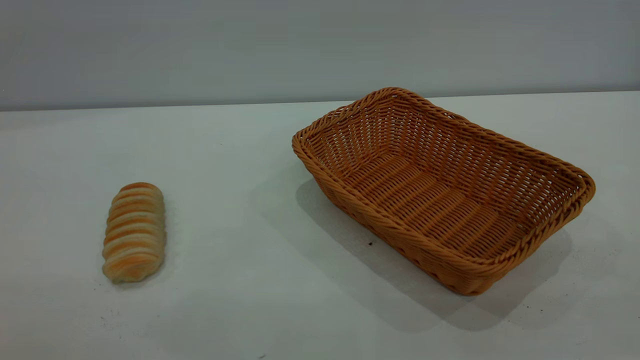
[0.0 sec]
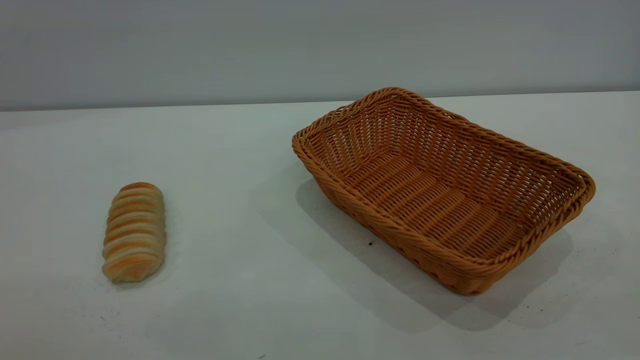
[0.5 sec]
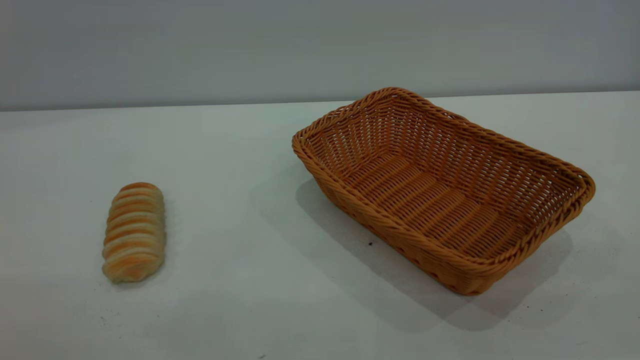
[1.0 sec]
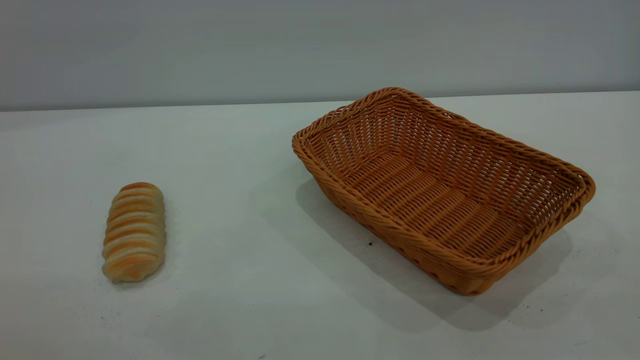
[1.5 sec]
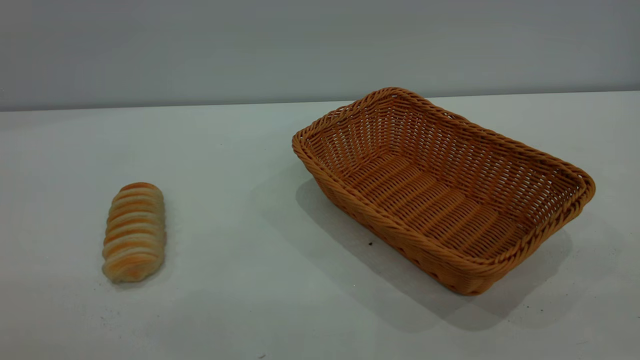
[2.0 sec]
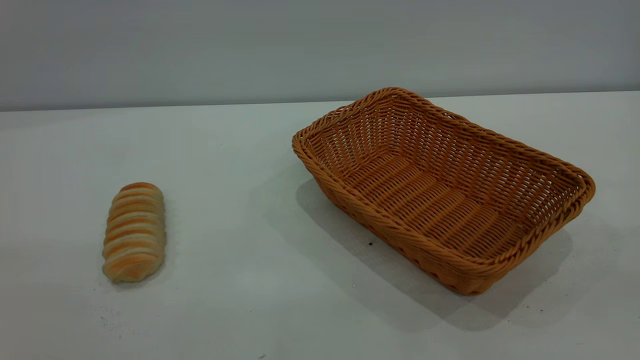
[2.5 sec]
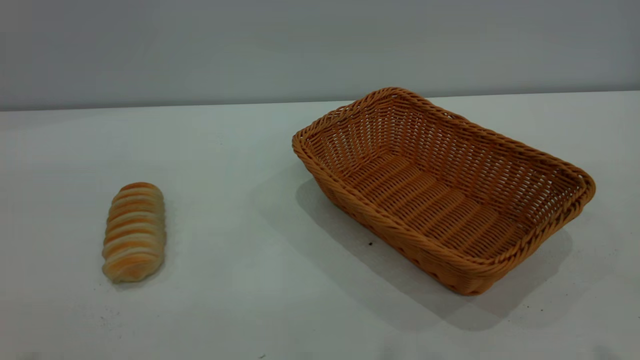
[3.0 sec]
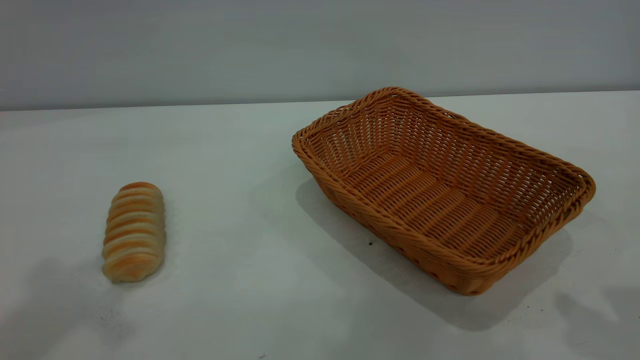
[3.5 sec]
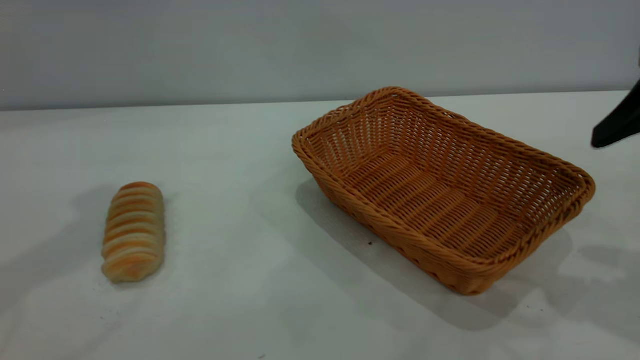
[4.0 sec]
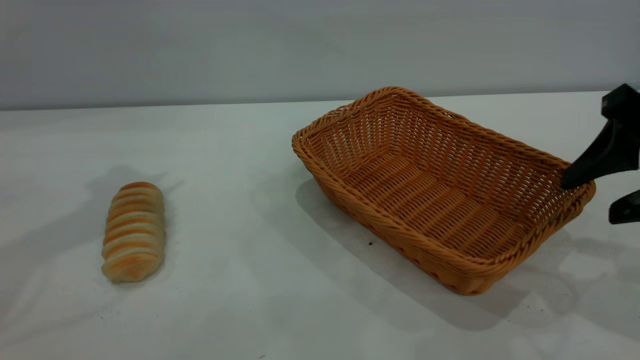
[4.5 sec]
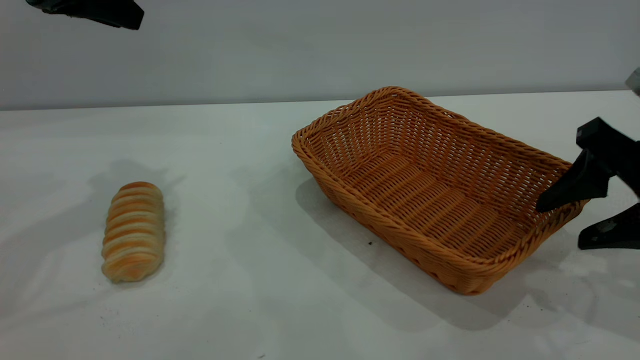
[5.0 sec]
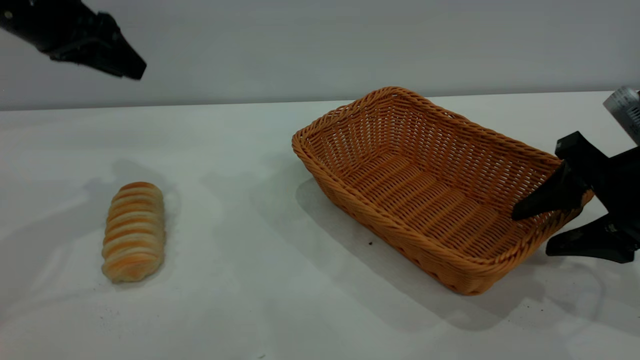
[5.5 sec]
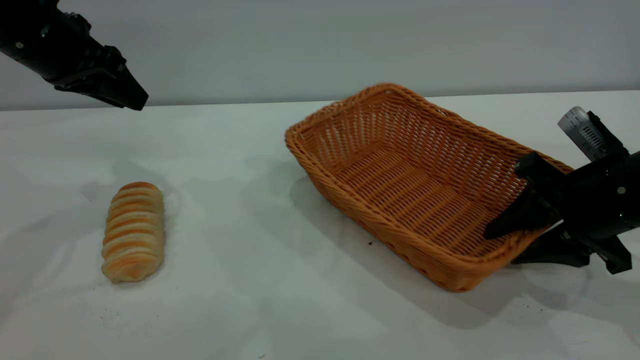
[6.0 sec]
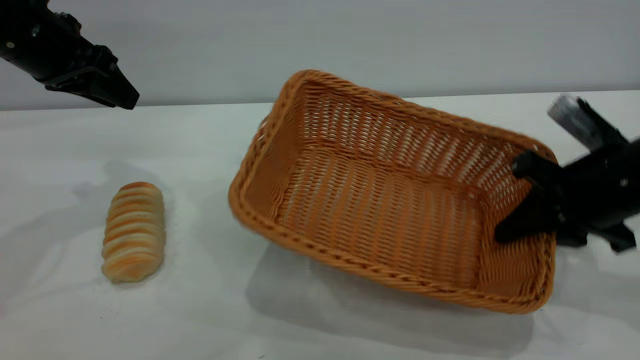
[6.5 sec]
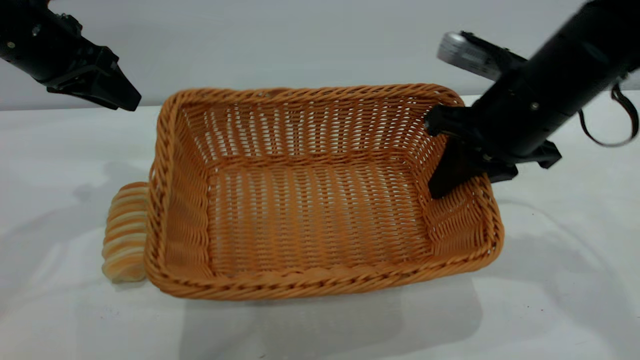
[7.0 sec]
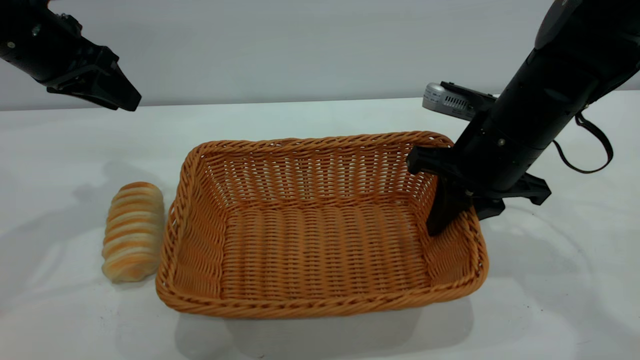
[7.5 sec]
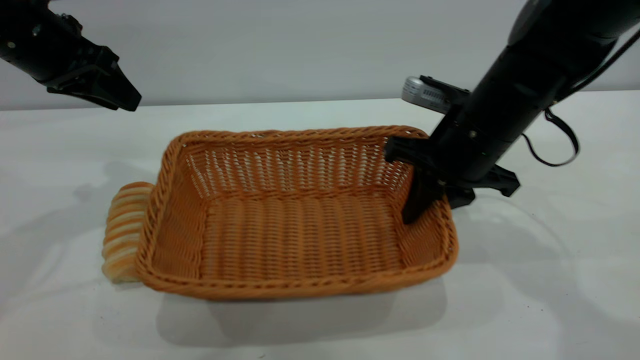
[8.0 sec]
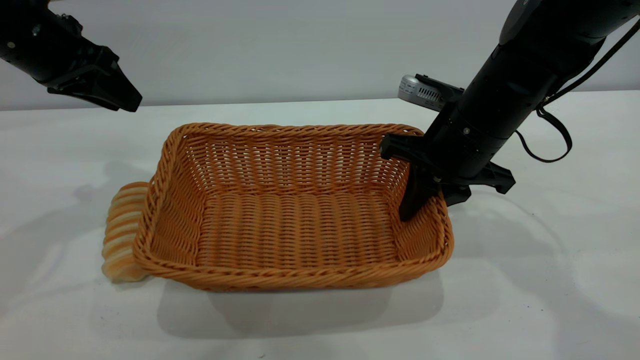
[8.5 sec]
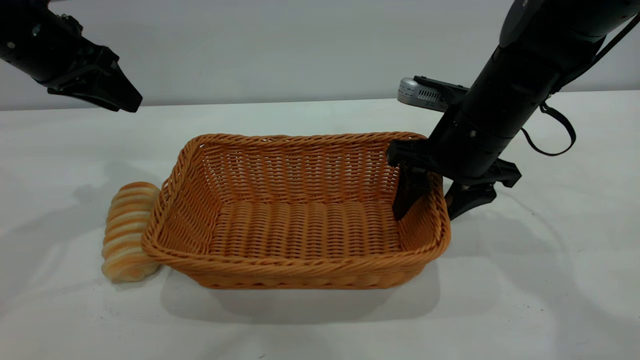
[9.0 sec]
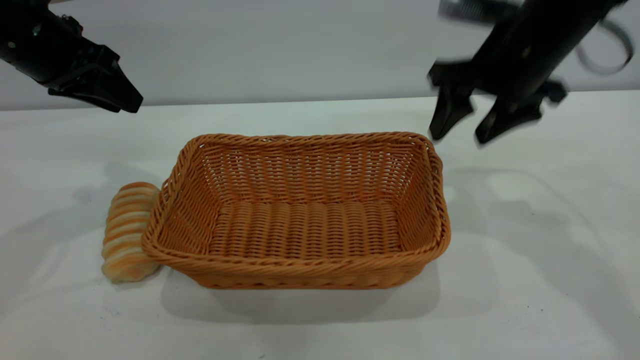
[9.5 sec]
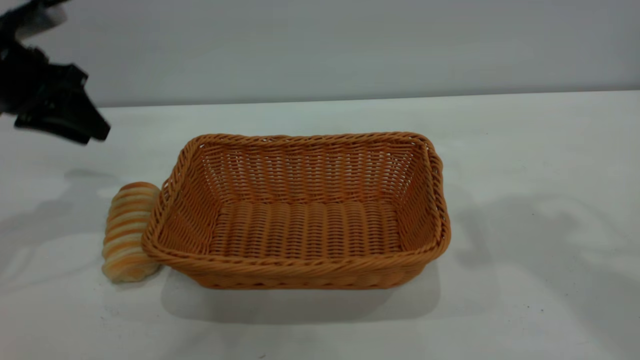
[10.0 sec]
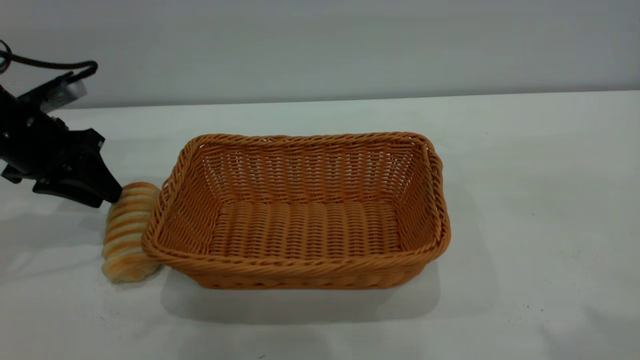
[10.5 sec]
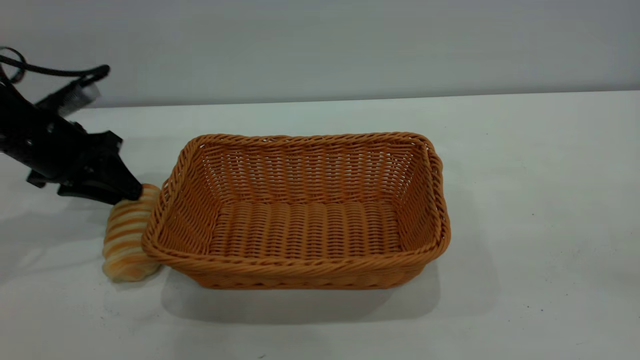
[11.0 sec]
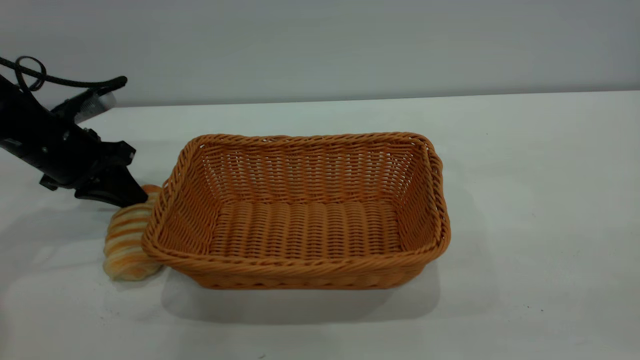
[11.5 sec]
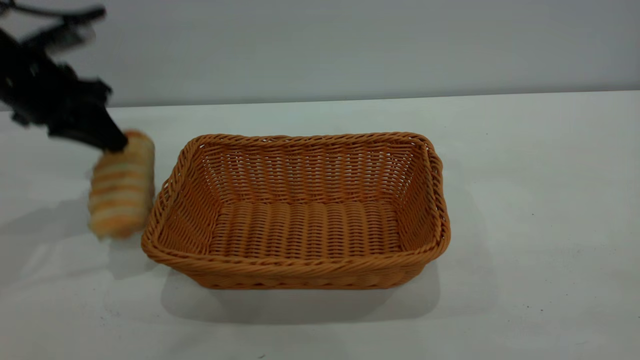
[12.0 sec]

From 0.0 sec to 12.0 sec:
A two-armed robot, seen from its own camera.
Task of the whole recording: One hand grasps the yellow basket and places it in the middle of the table, while the other hand picks up the long bread and puts it into the yellow basket.
Step, from 0.0 sec to 9.0 sec: Move the basket to the center of view.
From 0.0 sec to 2.0 sec: Both grippers stay about where they are.
From 2.0 sec to 4.0 sec: The right gripper goes roughly 25 cm forward and downward, and opens.
From 4.0 sec to 6.0 sec: The left gripper travels downward and forward by approximately 15 cm. Meanwhile the right gripper heads downward, covering some 15 cm, and closes its fingers.
From 6.0 sec to 8.0 sec: The right gripper heads to the left and forward, covering roughly 15 cm, and closes up.
From 8.0 sec to 10.0 sec: The left gripper ends up approximately 5 cm from where it was, while the right gripper heads upward, covering about 25 cm, and opens its fingers.
From 10.0 sec to 12.0 sec: The left gripper moves some 10 cm downward and comes back, and closes its fingers.

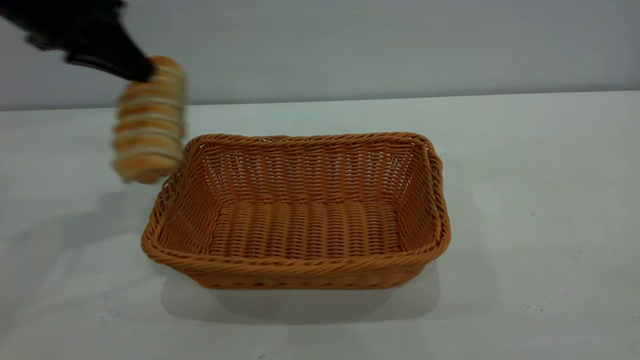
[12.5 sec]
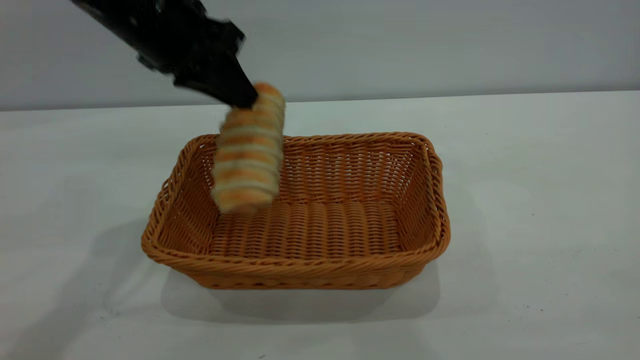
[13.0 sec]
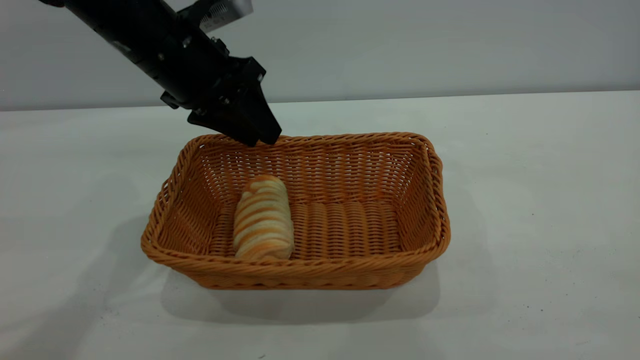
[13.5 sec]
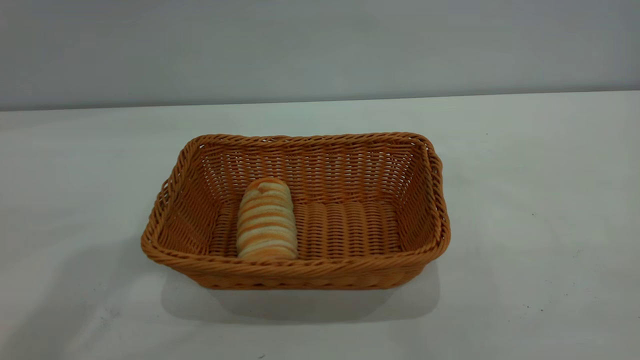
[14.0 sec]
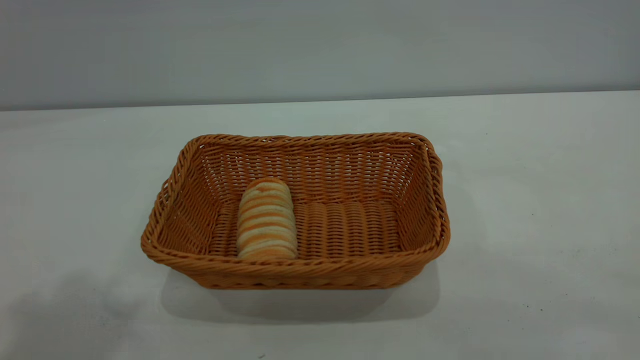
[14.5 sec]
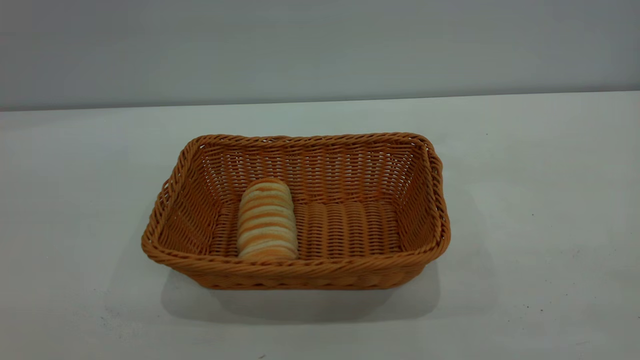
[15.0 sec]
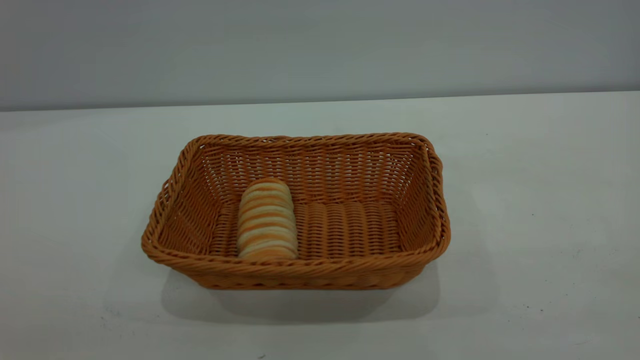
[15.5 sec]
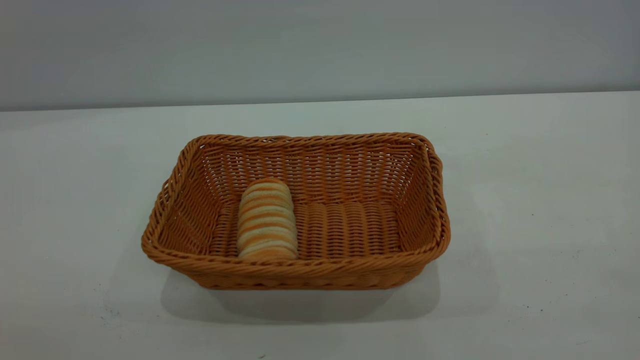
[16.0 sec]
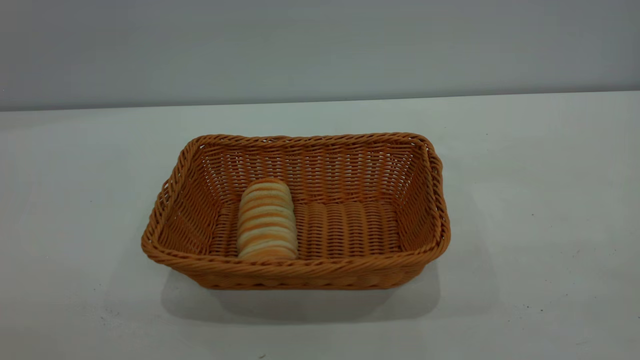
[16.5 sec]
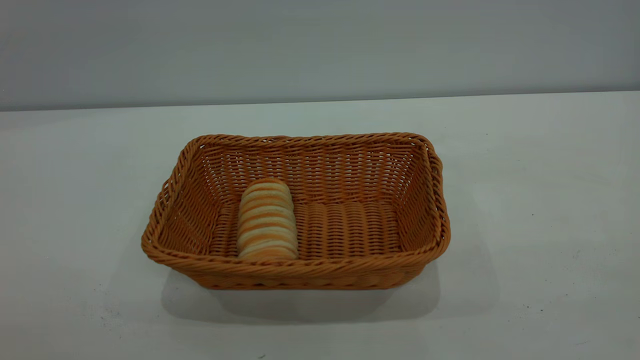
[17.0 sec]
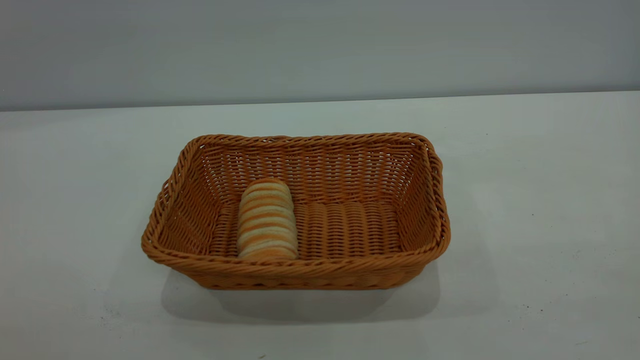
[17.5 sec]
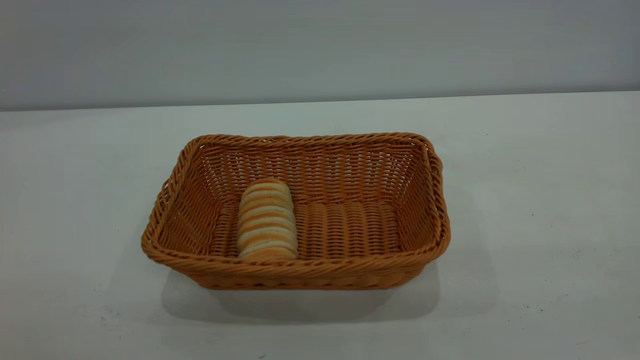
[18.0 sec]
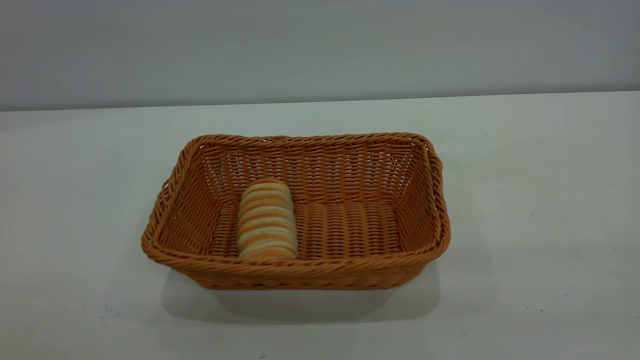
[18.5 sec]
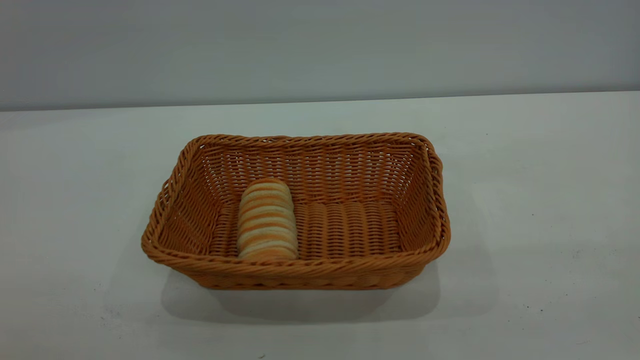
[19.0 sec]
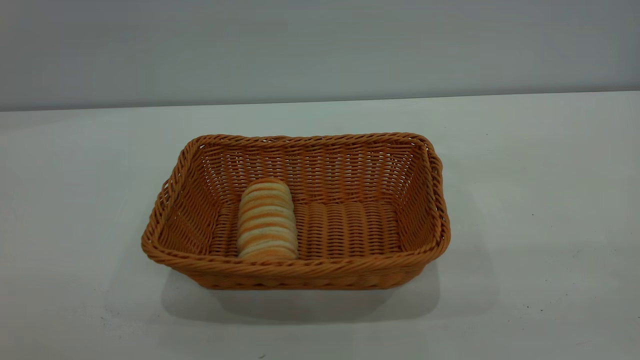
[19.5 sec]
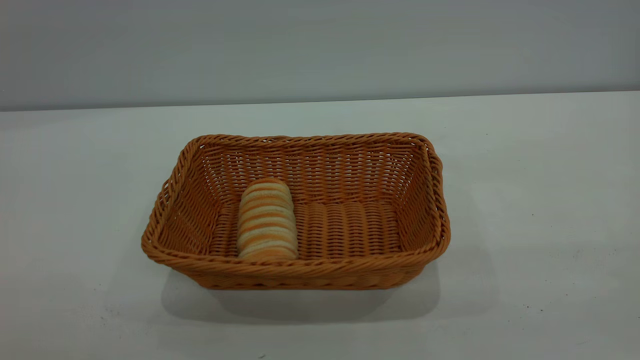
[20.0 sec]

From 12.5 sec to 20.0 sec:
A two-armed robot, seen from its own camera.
Task of the whole recording: One hand grasps the yellow basket and places it in the middle of the table, while the other hand picks up the long bread and puts it into the yellow basket.
Step, from 12.5 sec to 13.5 sec: place the bread into the basket.
From 12.5 sec to 14.5 sec: The left gripper goes approximately 35 cm upward and backward, and opens up.
